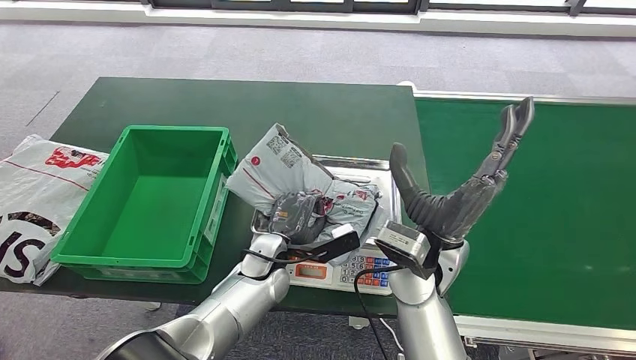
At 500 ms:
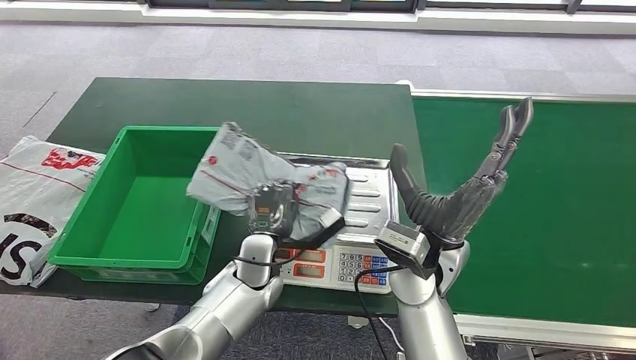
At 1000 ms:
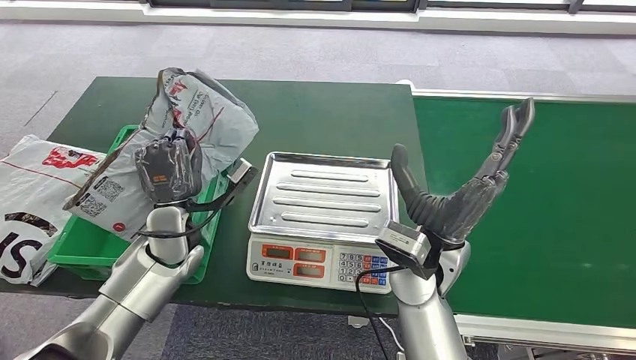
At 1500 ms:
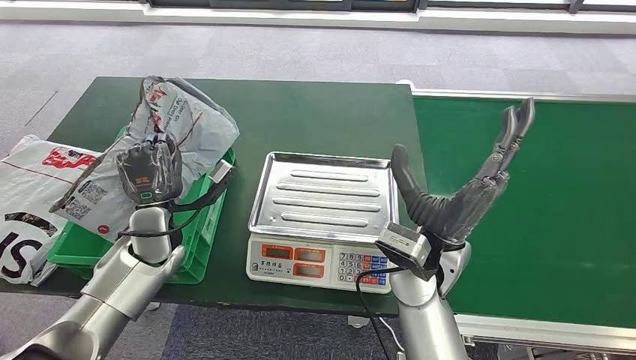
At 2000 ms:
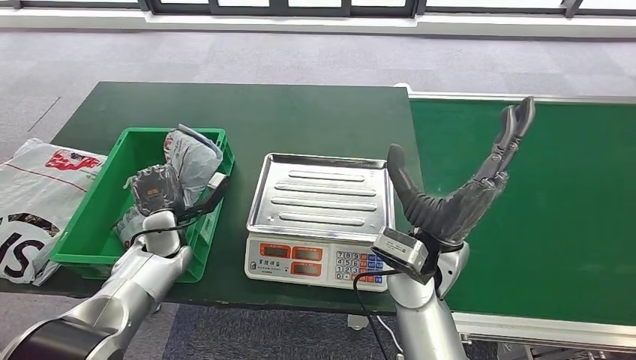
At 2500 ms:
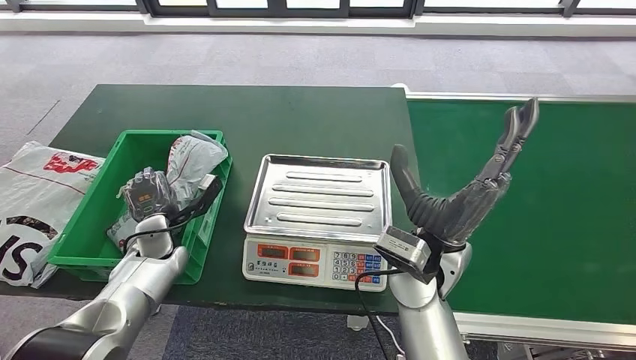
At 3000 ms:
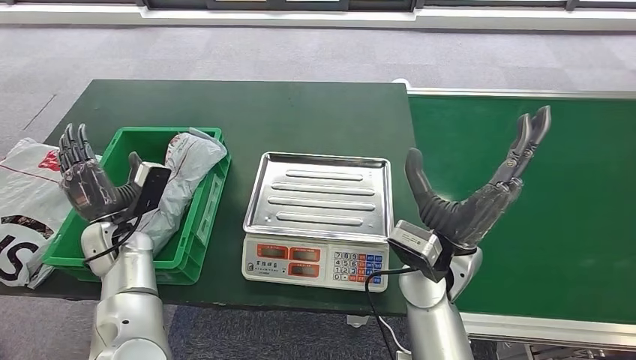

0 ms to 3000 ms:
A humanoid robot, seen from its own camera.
Step, 1500 ms to 3000 ms: Place the package into the parcel locker.

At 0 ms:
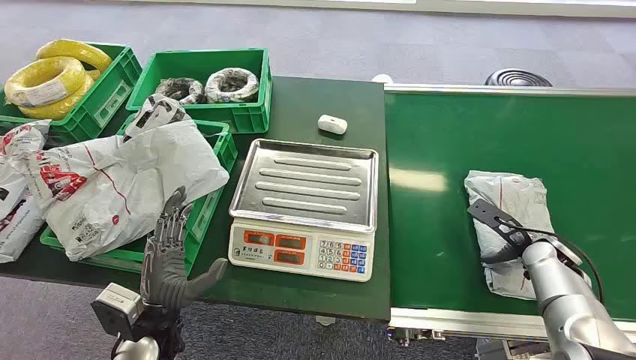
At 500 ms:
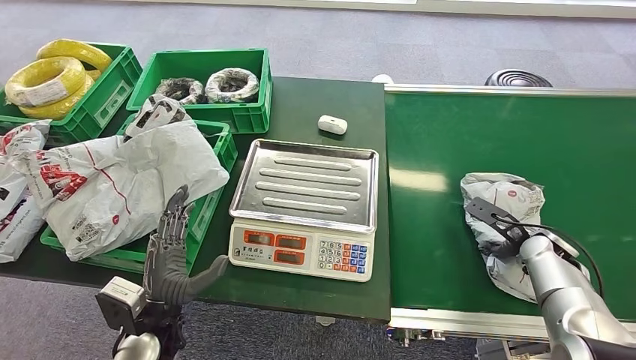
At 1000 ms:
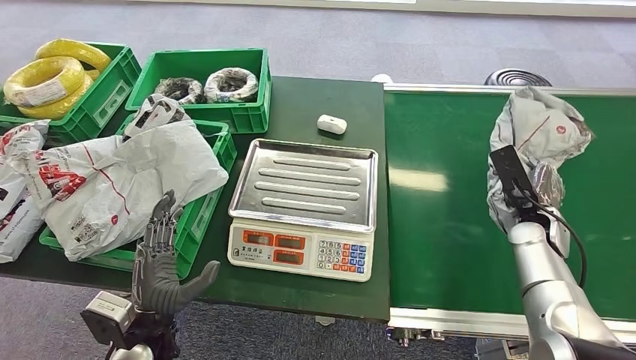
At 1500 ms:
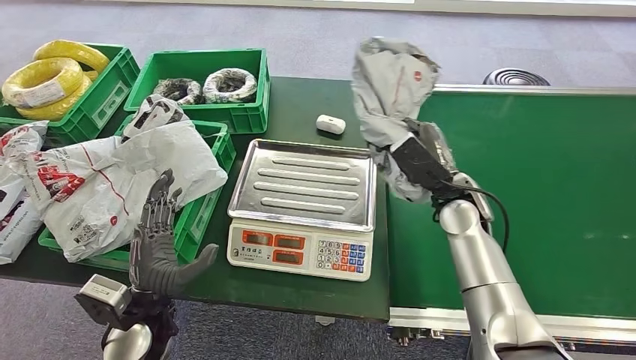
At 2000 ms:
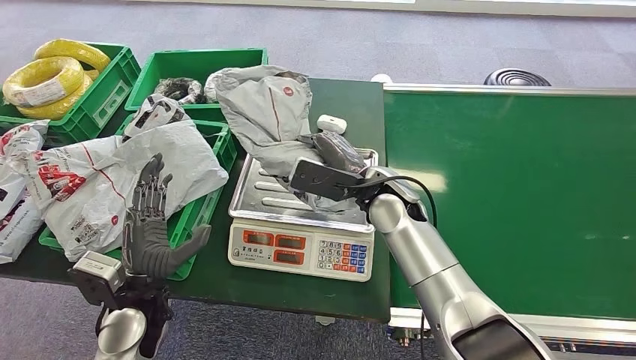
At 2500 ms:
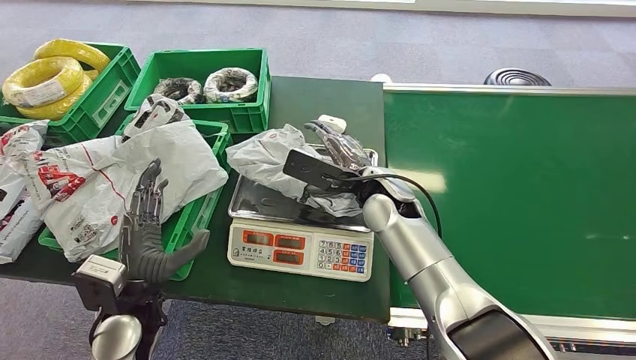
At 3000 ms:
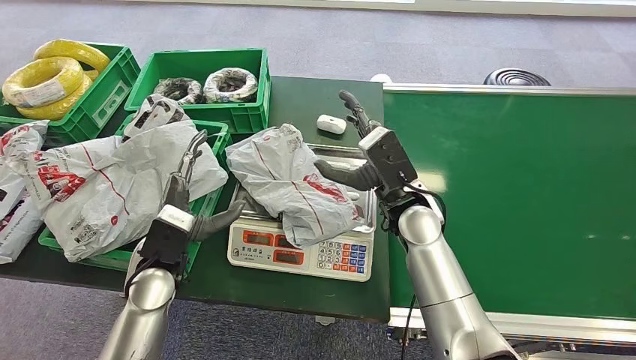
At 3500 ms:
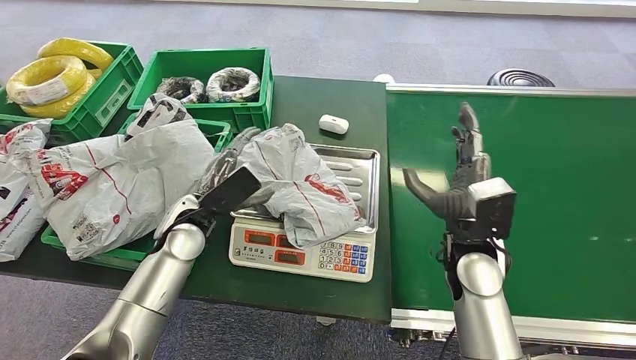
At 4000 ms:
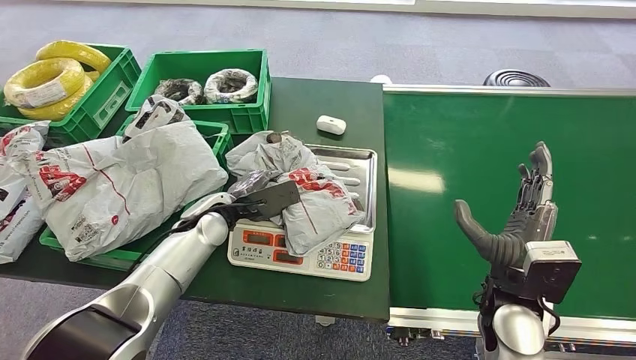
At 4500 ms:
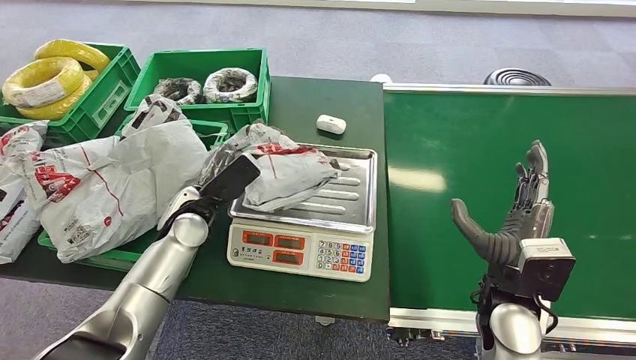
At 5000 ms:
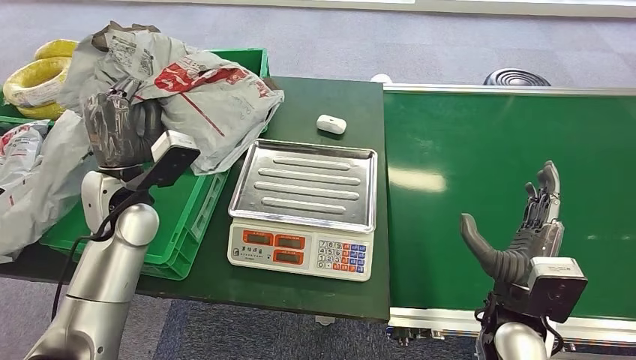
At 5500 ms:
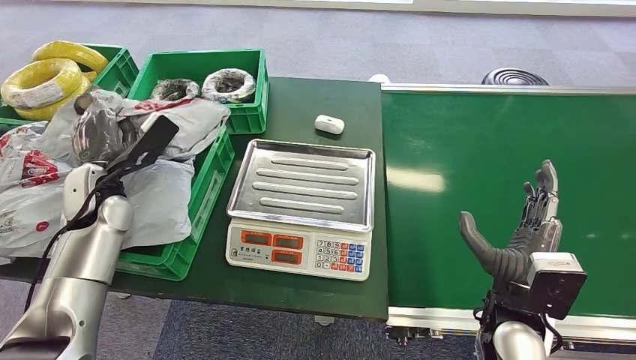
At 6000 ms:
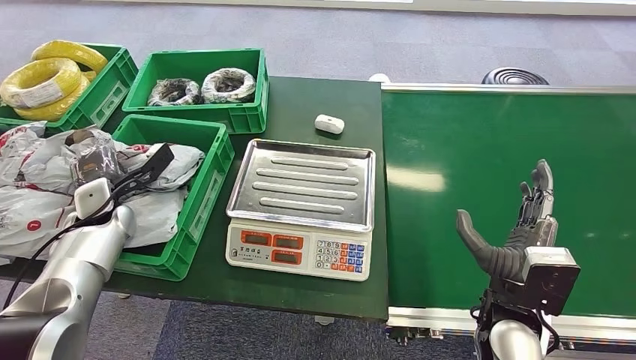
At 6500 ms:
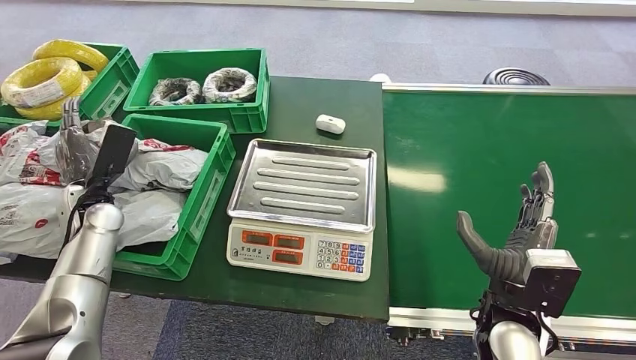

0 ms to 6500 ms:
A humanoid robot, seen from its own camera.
Step, 0 ms to 1000 ms: Pick up the package from the conveyor belt.
Step, 1500 ms to 3000 ms: Place the package onto the inbound machine.
Step, 3500 ms to 4500 ms: Pick up the package from the inbound machine.
Step, 5000 ms to 6000 ms: Place the package into the parcel locker.
